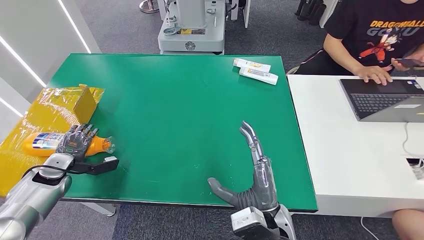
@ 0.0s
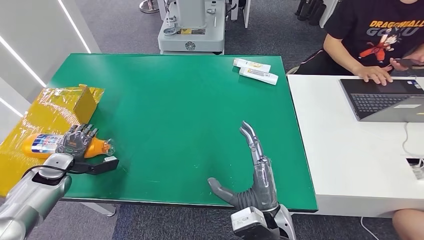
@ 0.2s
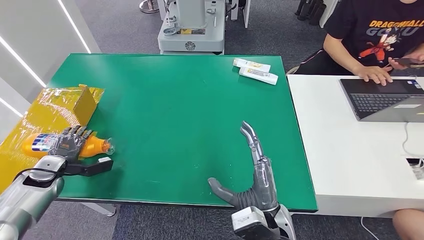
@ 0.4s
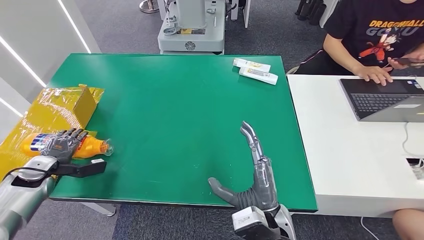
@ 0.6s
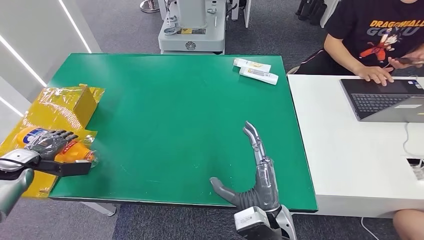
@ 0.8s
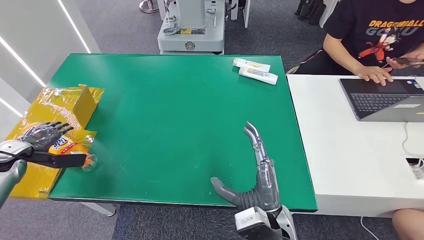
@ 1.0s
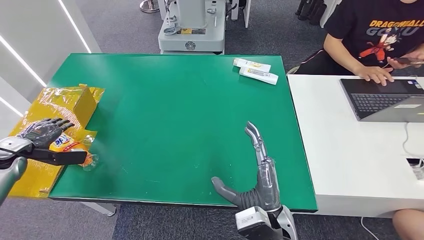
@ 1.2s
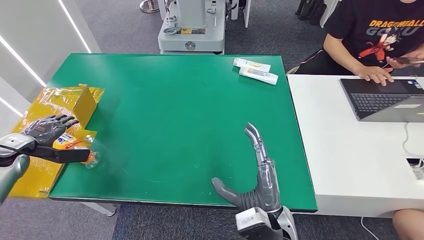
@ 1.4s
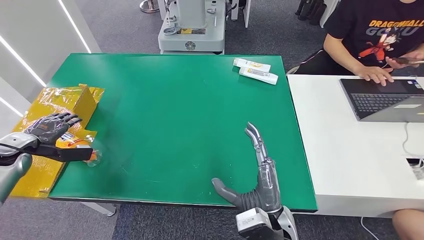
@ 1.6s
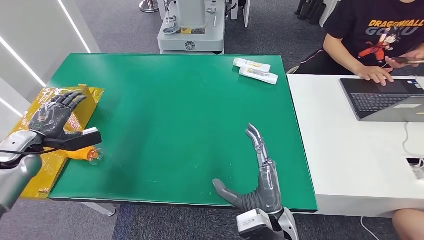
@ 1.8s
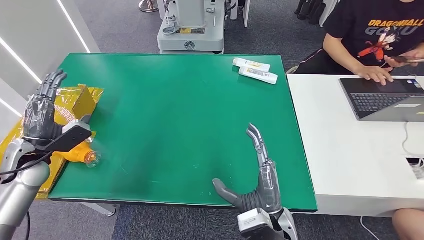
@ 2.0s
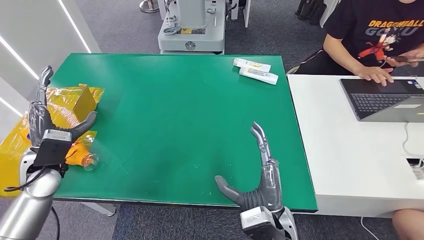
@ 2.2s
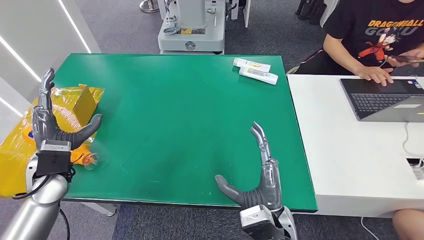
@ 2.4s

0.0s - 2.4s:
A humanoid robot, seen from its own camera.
Step, 0.0s - 2.4s: Turn the bottle to the front side.
0.0s - 1.2s: The left hand moves to the left and upward, some 10 cm.
1.2s - 2.4s: The left hand is displaced to the right by some 20 cm.

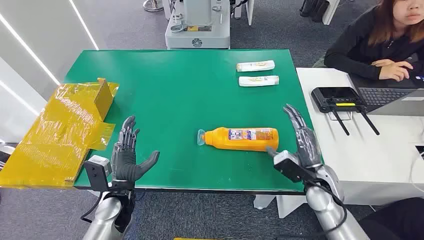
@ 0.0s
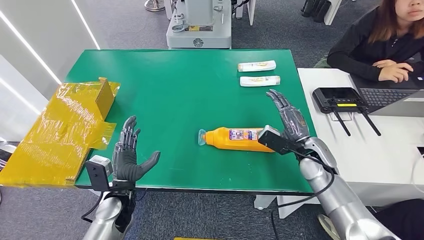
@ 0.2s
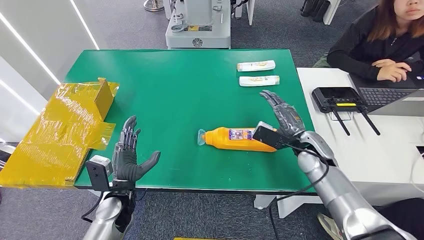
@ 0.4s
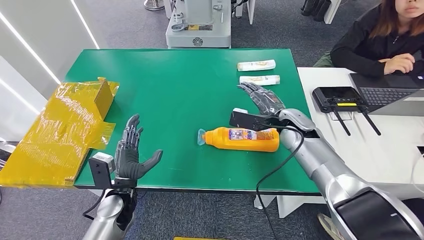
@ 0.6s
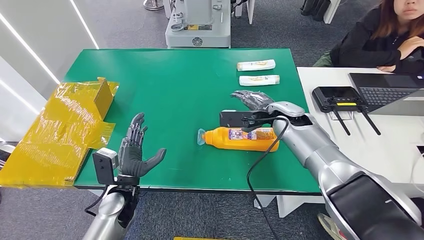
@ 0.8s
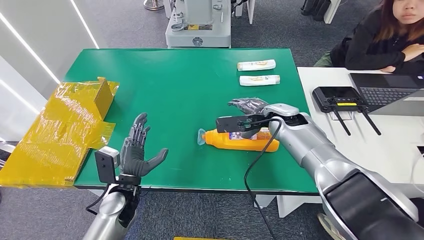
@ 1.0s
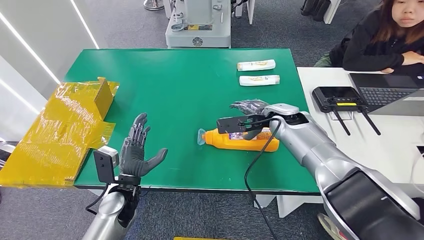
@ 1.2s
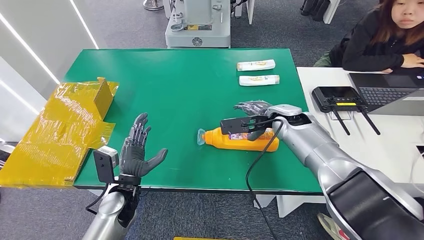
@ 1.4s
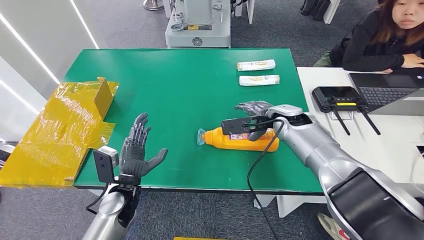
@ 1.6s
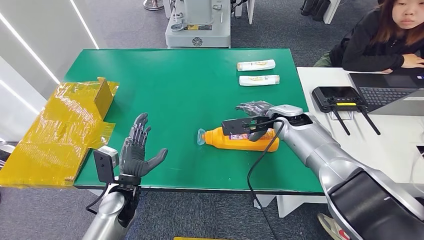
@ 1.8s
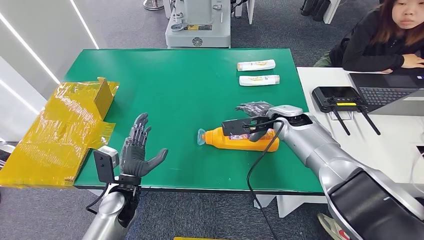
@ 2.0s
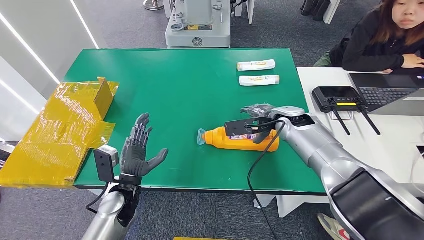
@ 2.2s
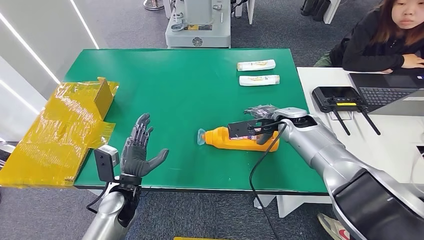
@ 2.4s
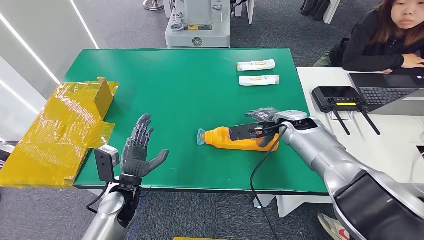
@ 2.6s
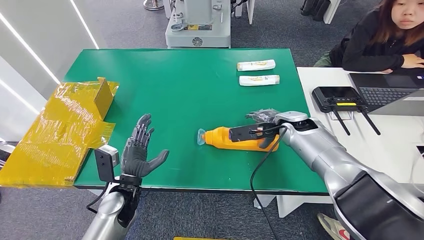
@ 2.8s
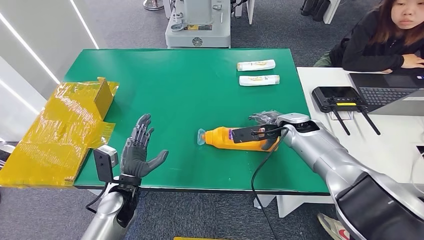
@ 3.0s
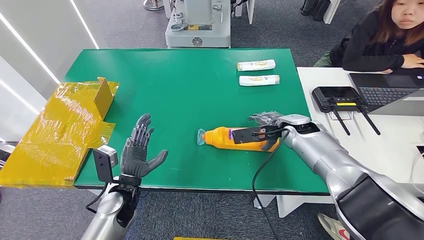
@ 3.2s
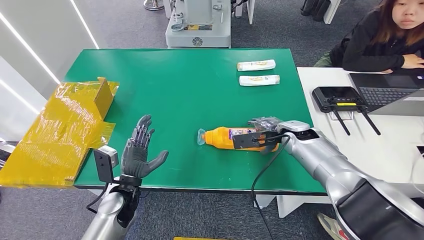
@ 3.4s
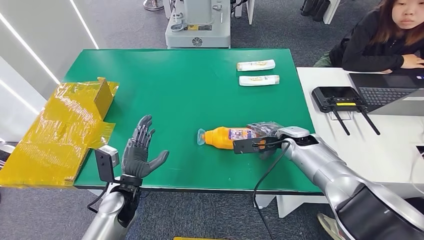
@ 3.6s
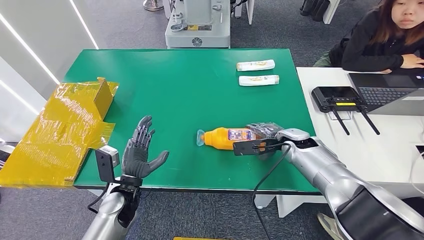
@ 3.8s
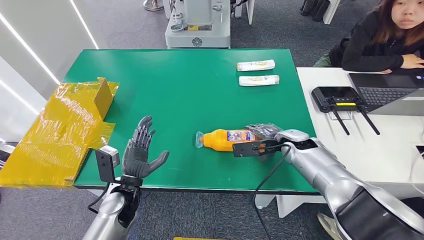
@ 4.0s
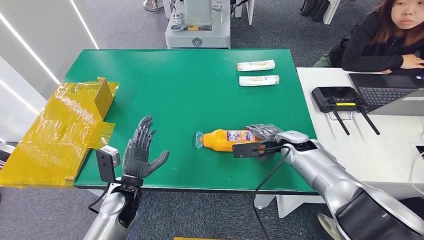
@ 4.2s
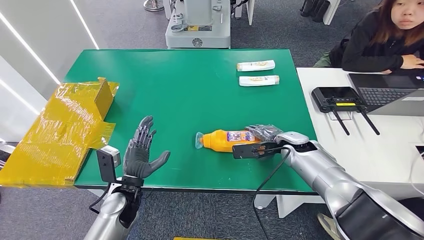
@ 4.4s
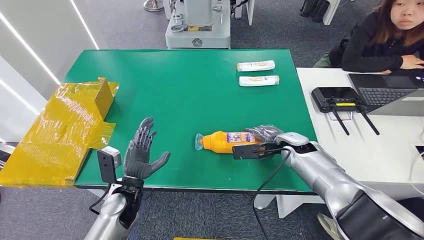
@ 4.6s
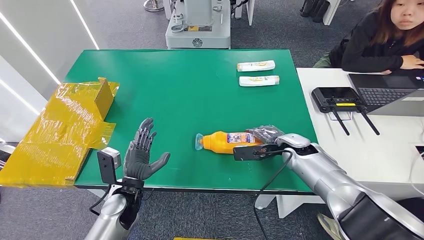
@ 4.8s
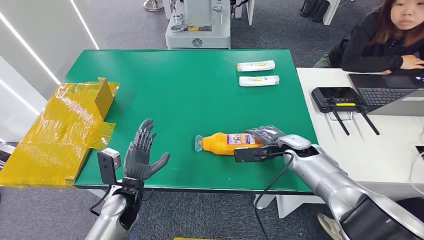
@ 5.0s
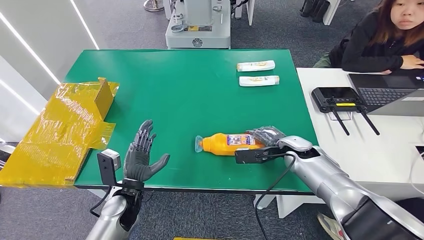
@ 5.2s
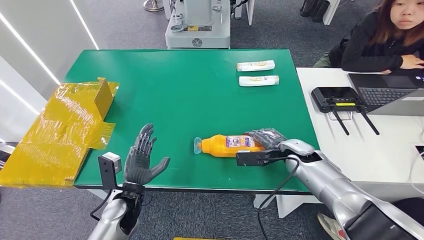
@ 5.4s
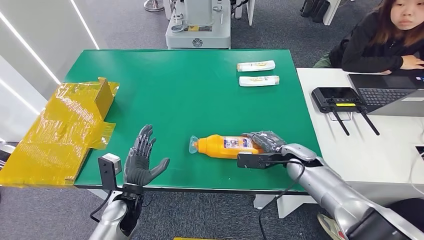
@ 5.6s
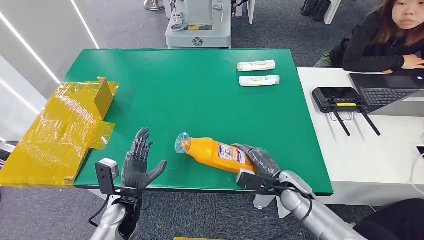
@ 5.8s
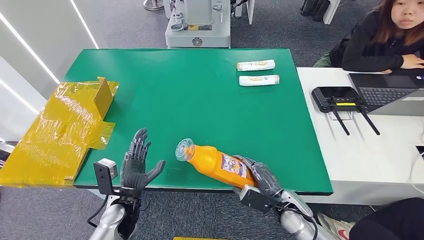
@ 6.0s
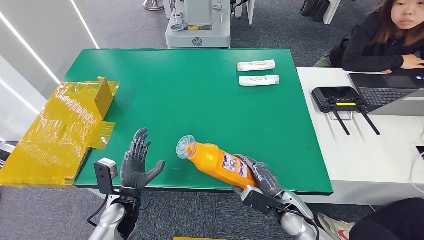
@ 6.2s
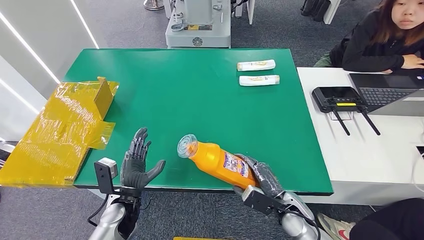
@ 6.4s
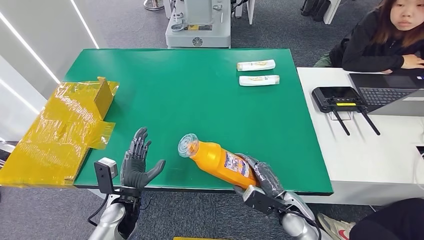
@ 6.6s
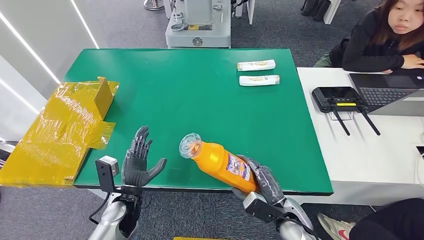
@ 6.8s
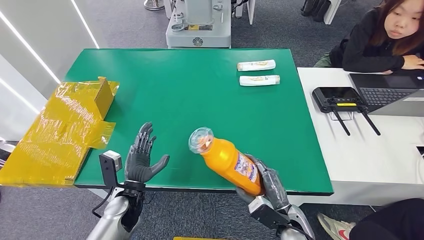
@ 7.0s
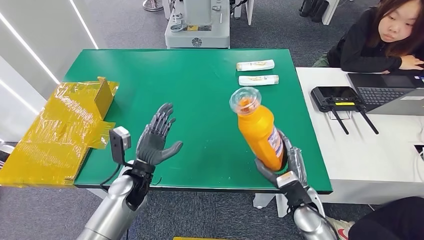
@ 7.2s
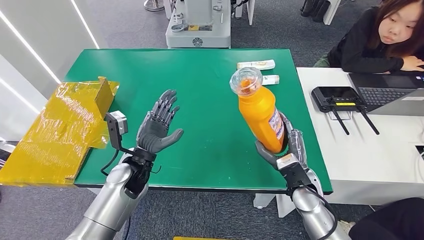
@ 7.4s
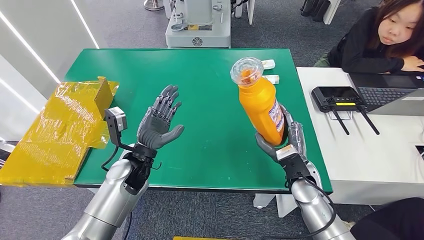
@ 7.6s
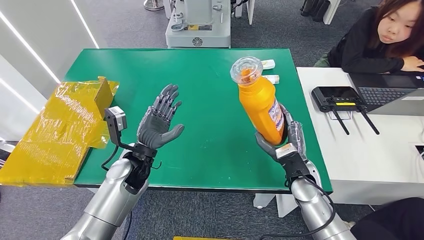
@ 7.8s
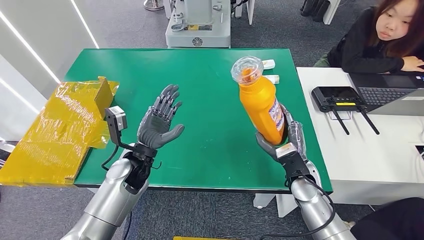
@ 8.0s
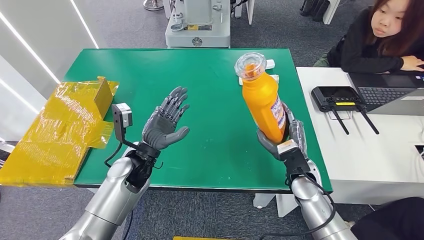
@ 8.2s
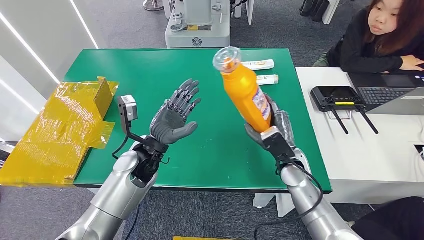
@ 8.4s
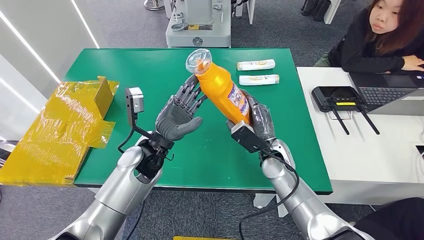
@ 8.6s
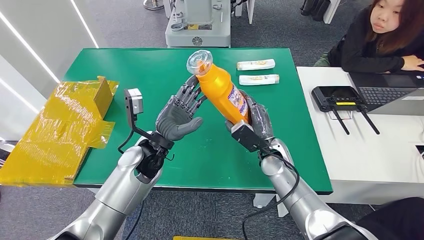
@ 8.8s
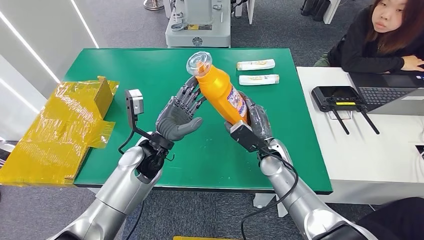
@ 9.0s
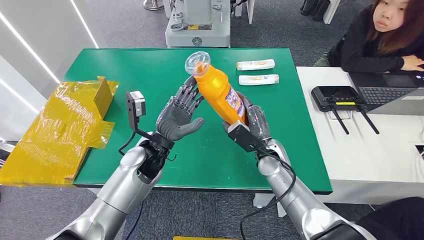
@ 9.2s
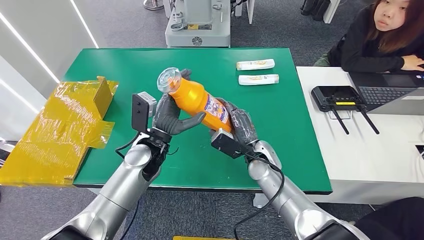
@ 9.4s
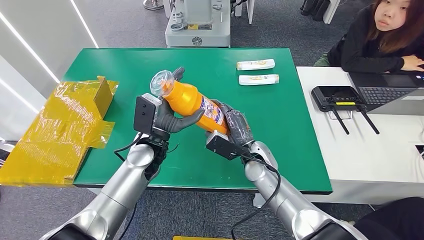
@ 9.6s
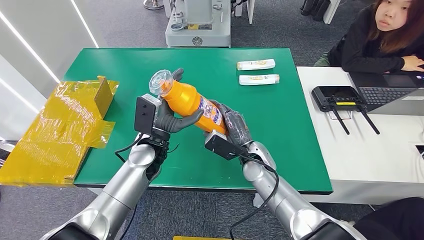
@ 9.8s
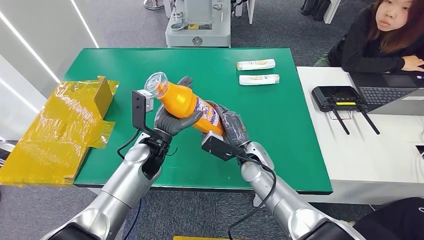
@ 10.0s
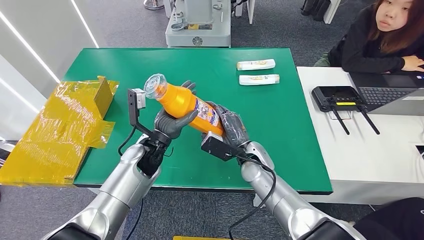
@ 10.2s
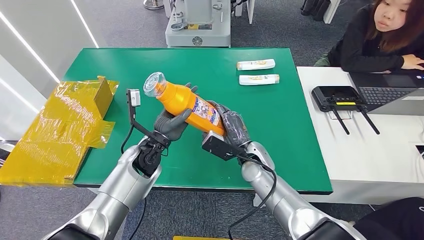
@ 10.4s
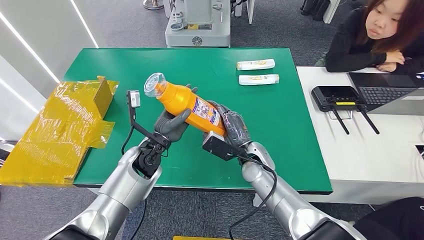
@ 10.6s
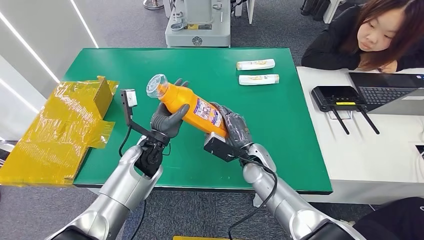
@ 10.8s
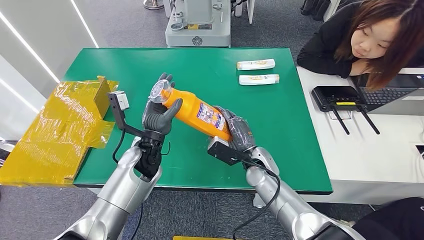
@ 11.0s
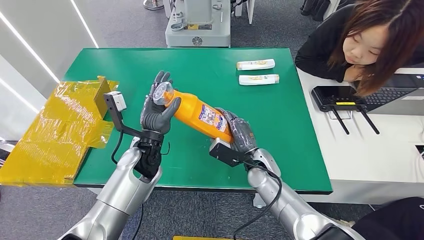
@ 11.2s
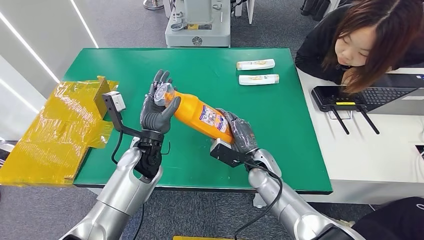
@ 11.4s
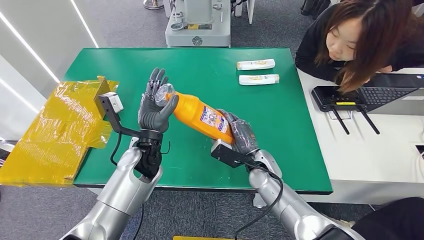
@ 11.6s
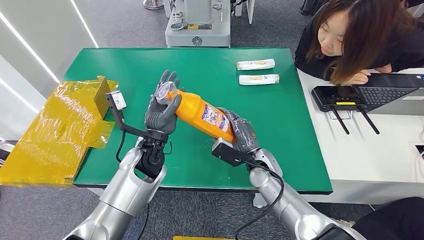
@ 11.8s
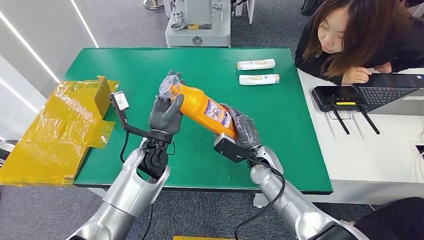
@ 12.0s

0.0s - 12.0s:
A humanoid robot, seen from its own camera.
Step, 0.0s - 6.8s: Pick up the bottle from the table.
1.6s - 3.0s: The hands stay close to where they were, moving slightly.
3.0s - 4.4s: The right hand is displaced downward by approximately 5 cm.
4.4s - 6.0s: The right hand shifts approximately 20 cm backward and downward.
6.0s - 7.6s: Both hands travel together upward and forward, approximately 10 cm.
7.6s - 9.0s: The left hand changes place by about 5 cm. Meanwhile the right hand is displaced to the left and forward by approximately 10 cm.
9.0s - 10.4s: The right hand heads to the left, covering about 5 cm.

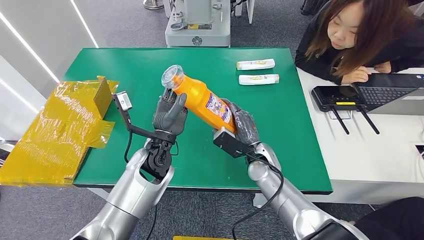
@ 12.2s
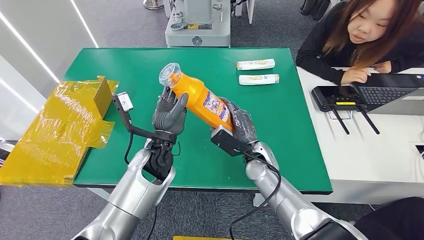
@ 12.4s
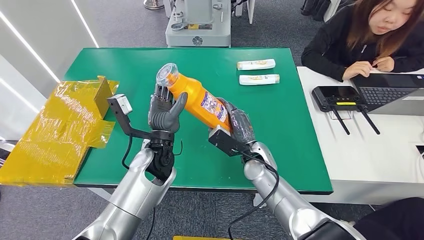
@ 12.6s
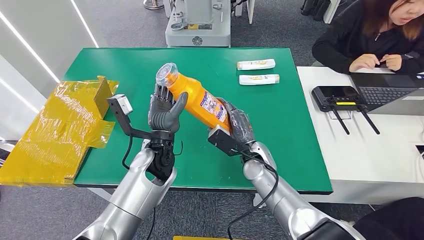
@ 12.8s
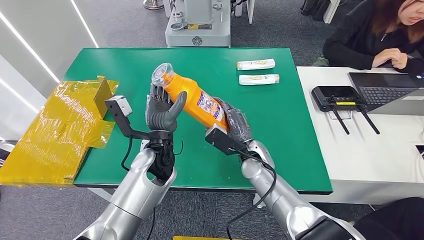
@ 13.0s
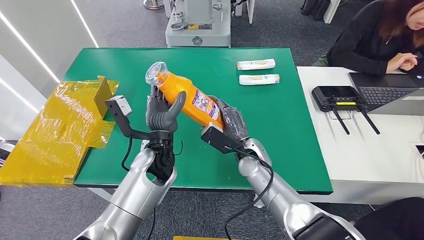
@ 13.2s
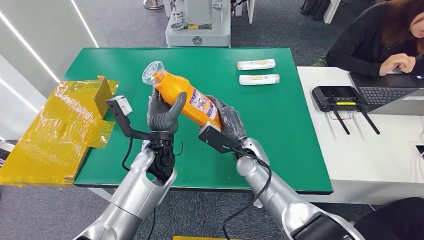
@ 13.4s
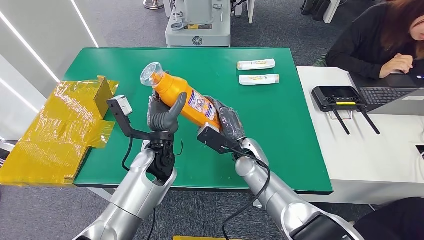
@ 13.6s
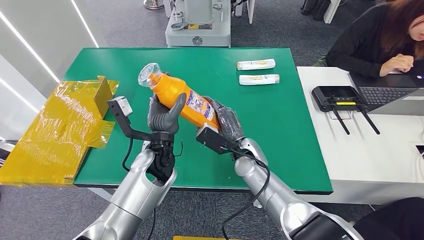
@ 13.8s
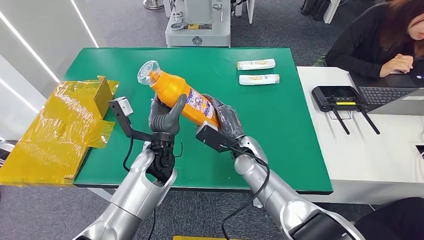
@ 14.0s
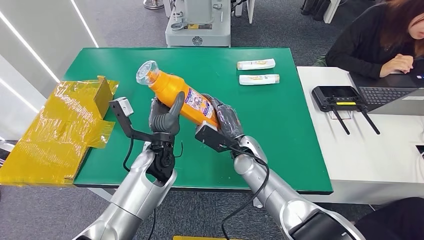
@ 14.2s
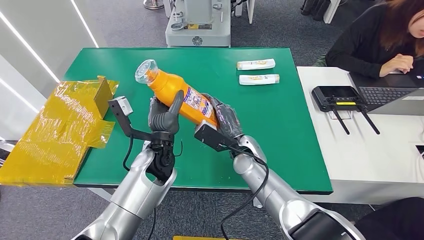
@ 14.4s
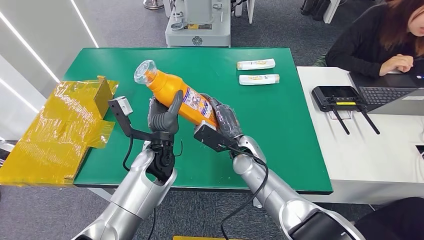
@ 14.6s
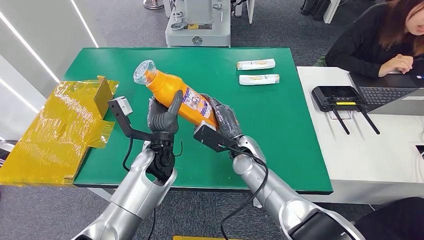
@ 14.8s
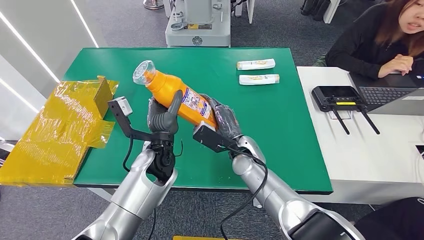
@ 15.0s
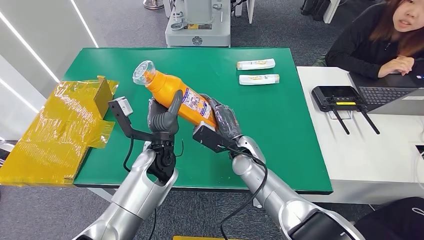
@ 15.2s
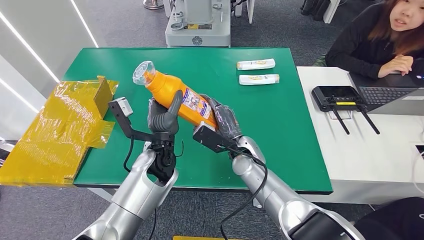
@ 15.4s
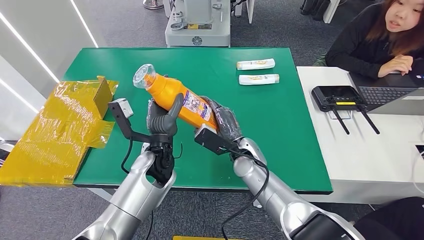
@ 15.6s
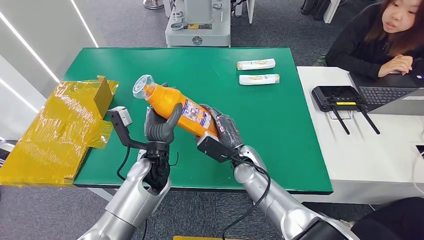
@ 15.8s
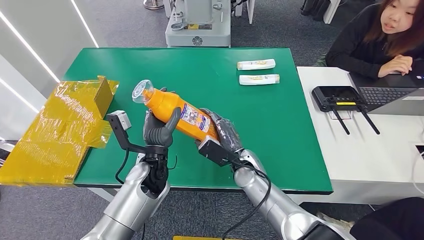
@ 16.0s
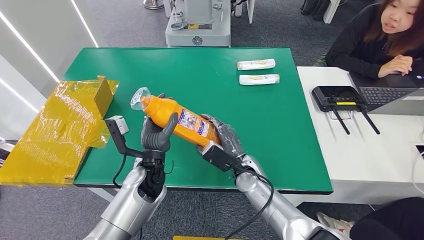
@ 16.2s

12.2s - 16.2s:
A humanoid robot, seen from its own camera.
13.6s - 14.8s: The two hands keep their place.
14.8s - 16.2s: The left hand moves approximately 5 cm; the right hand changes place by about 5 cm.
